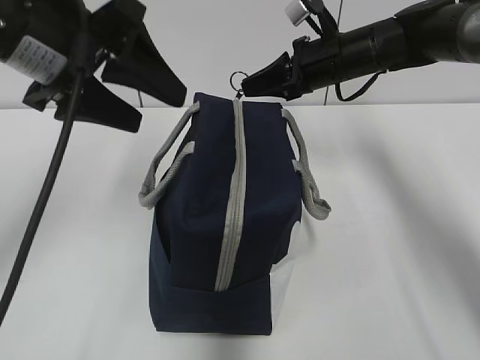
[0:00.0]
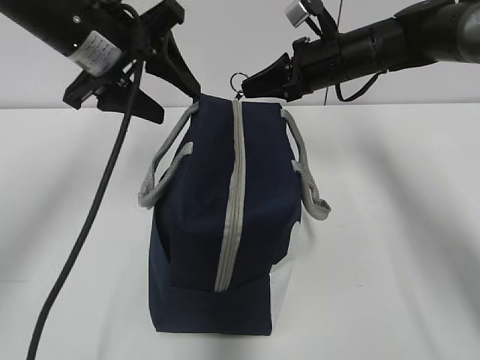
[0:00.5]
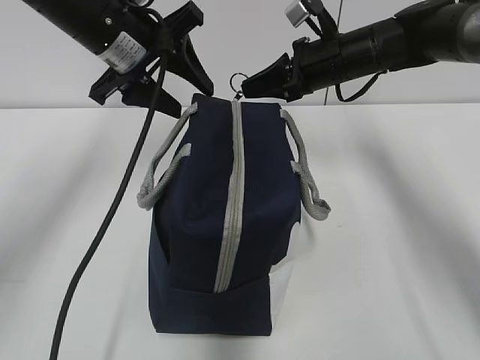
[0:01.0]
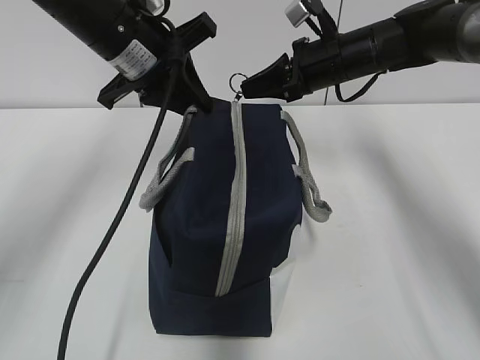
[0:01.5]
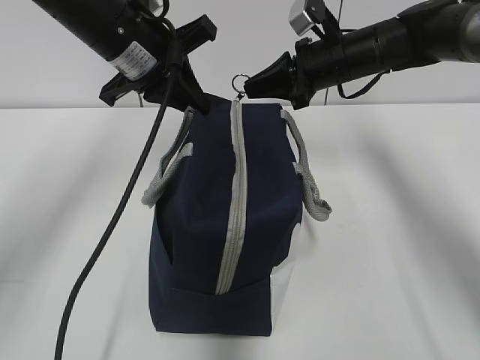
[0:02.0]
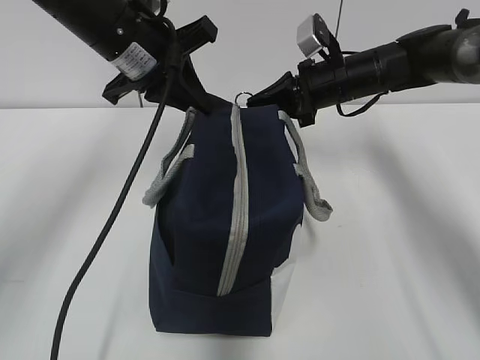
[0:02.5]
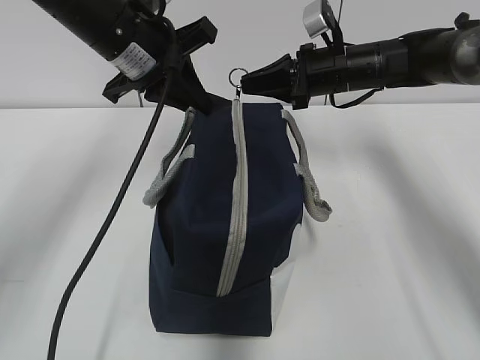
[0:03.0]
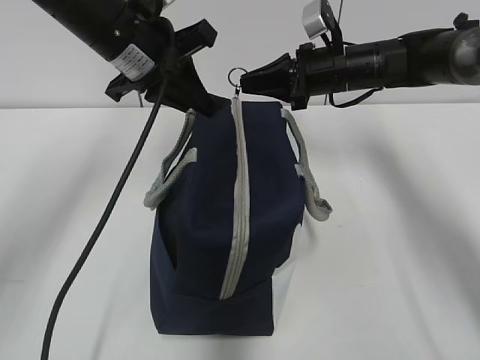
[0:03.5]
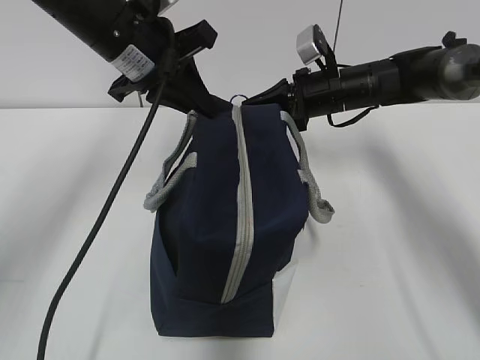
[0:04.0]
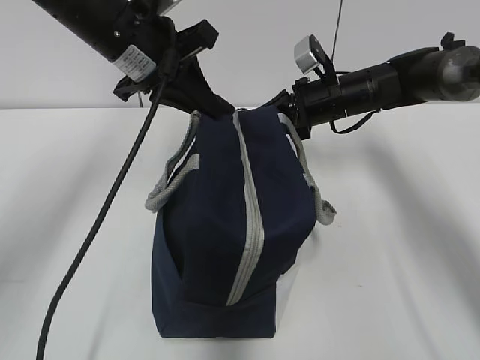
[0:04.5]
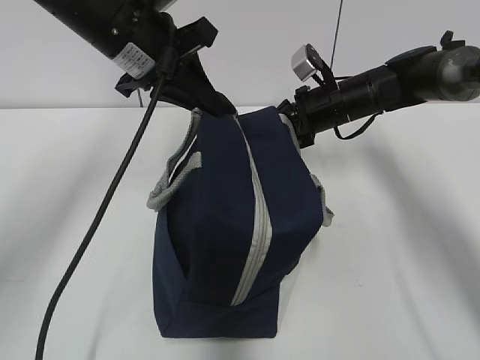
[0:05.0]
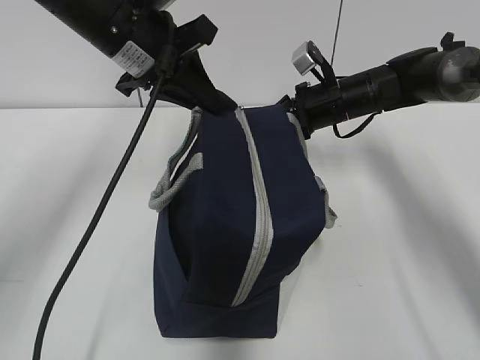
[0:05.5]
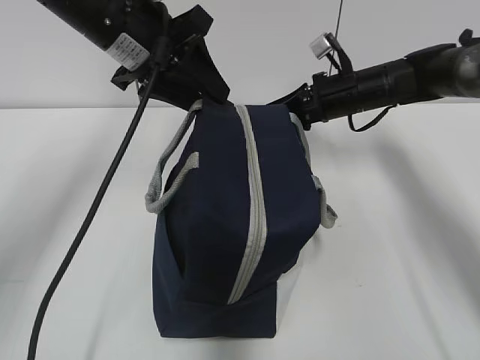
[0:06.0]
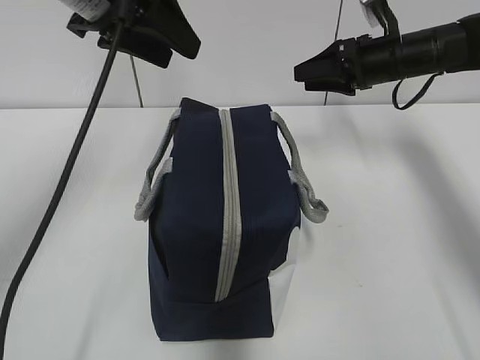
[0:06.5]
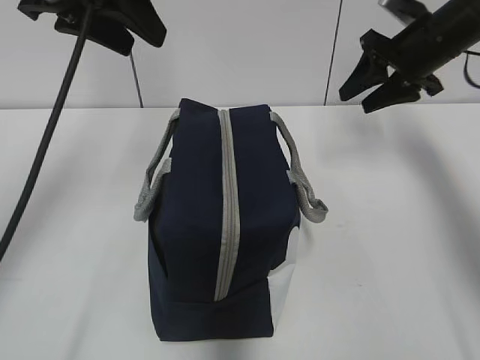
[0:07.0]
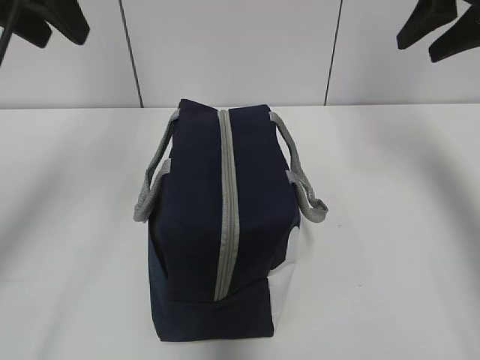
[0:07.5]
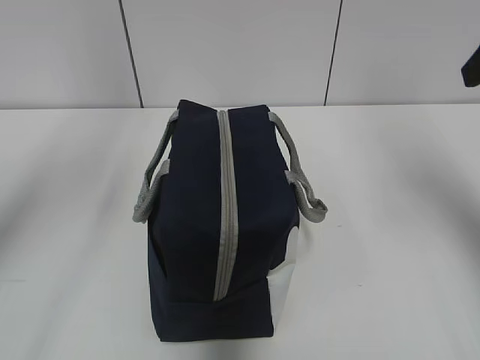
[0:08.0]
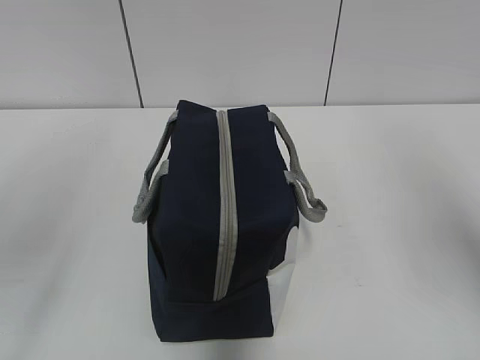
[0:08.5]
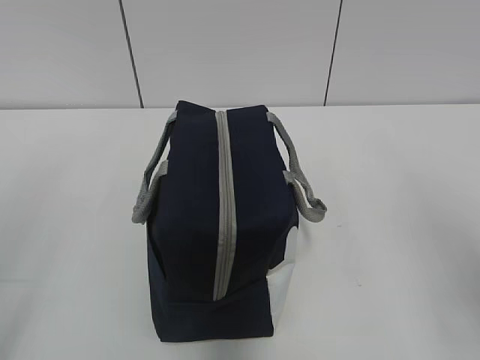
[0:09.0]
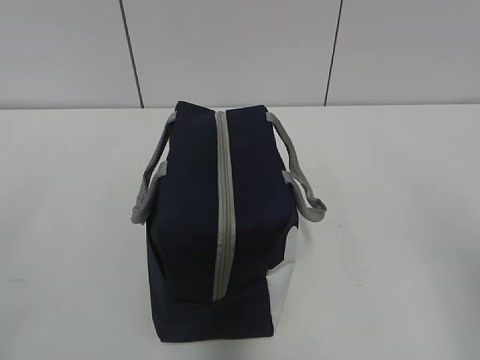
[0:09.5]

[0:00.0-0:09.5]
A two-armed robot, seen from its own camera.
Step, 0:00.0 to 0:05.0: Pull the zipper with your right hand.
0:00.0 to 0:02.0: The left gripper travels forward by approximately 10 cm, and closes its fingers.
0:02.0 to 0:04.0: The right gripper moves downward, roughly 5 cm.
0:04.0 to 0:05.5: The grippers make only small movements.
0:05.5 to 0:07.5: The left gripper travels upward, to the left and backward by about 15 cm, and opens up; the right gripper is displaced upward, to the right and backward by roughly 25 cm, and opens its fingers.
0:07.5 to 0:09.5: The left gripper travels backward and downward by roughly 30 cm, while the right gripper shifts about 30 cm backward.

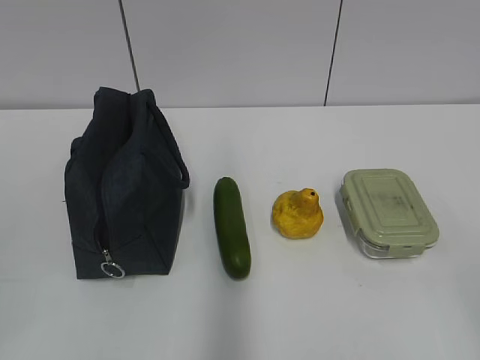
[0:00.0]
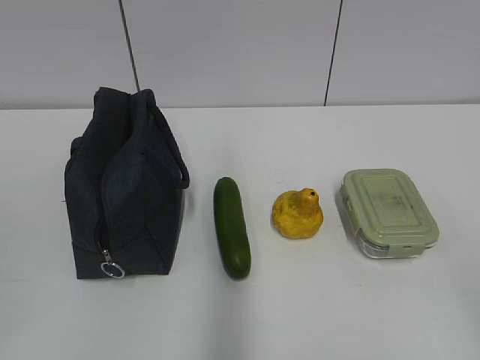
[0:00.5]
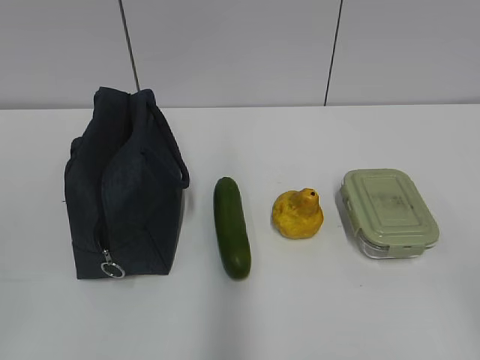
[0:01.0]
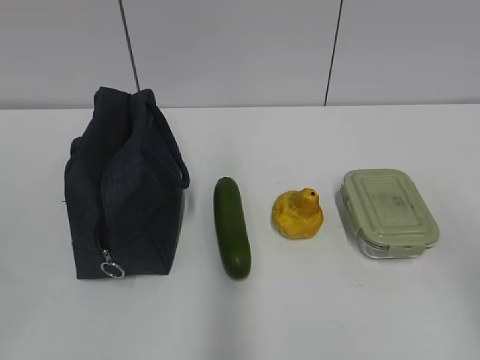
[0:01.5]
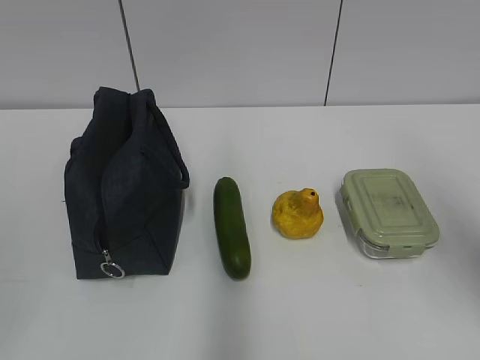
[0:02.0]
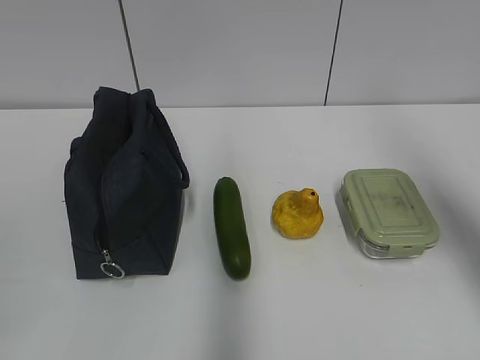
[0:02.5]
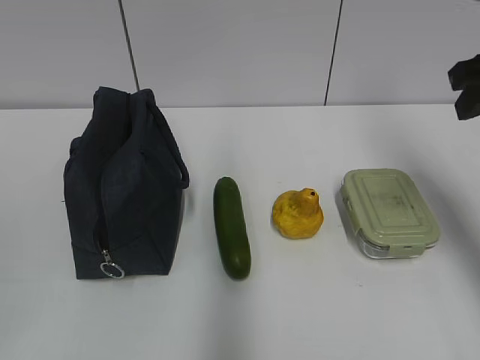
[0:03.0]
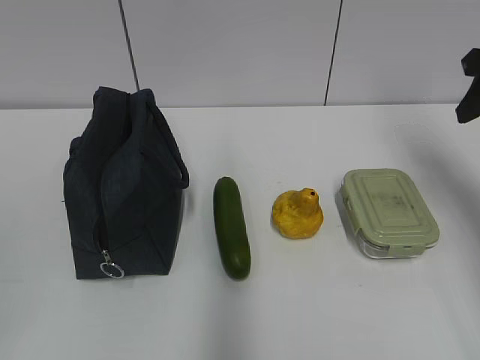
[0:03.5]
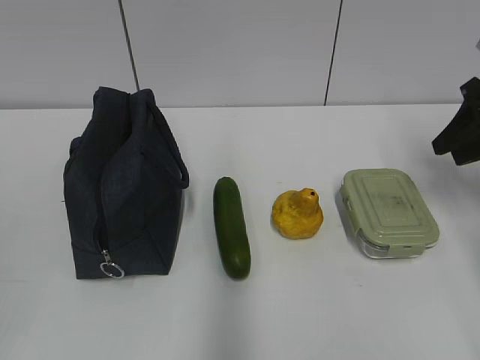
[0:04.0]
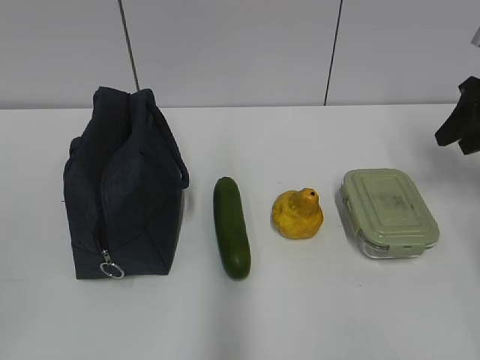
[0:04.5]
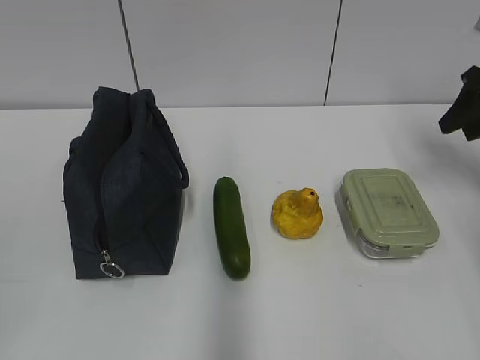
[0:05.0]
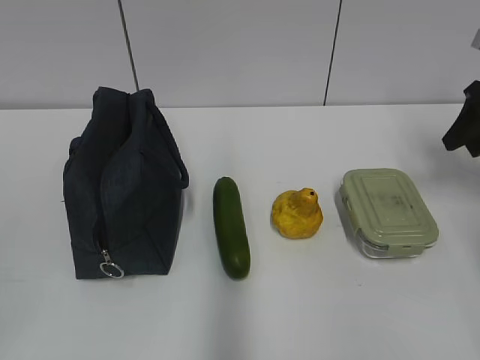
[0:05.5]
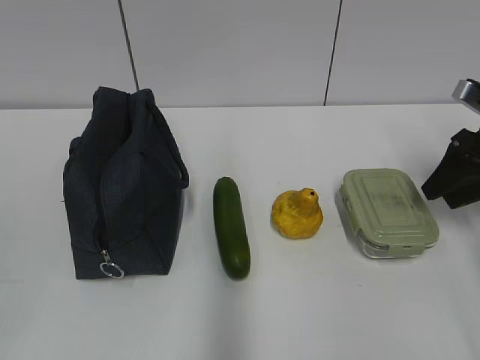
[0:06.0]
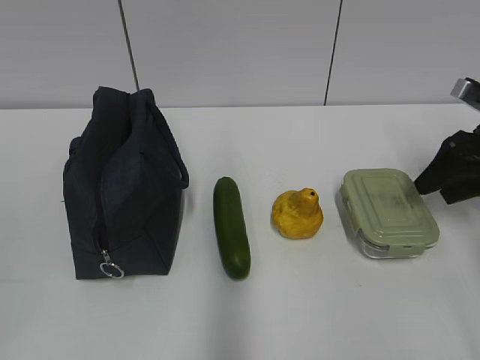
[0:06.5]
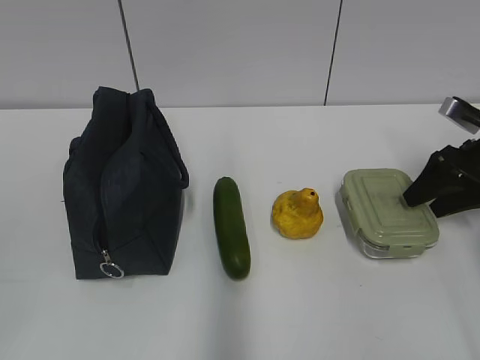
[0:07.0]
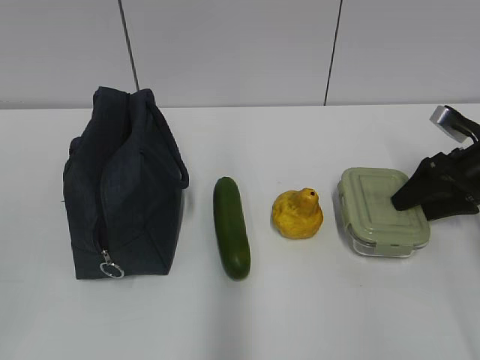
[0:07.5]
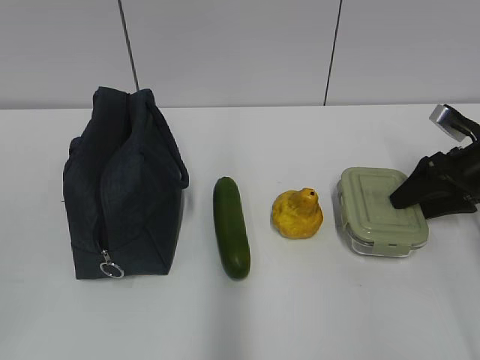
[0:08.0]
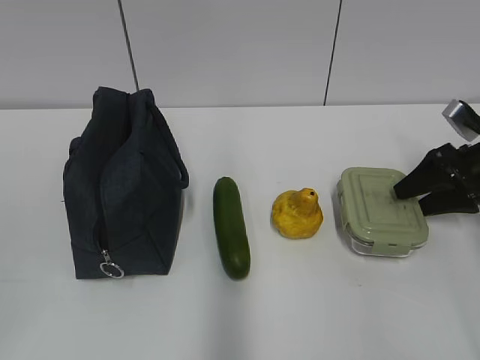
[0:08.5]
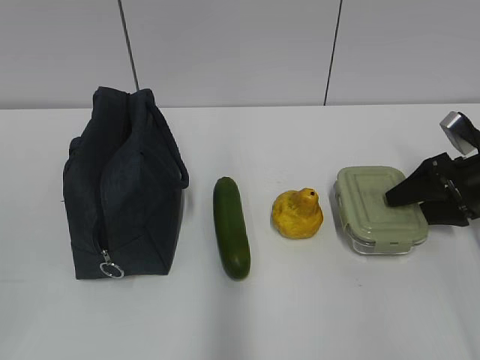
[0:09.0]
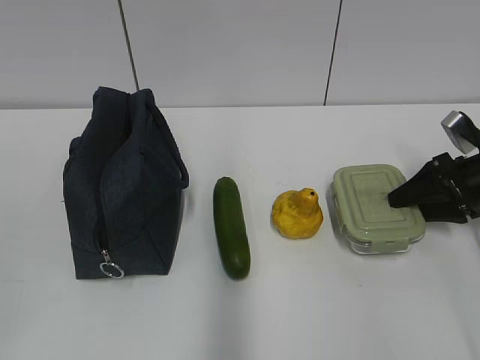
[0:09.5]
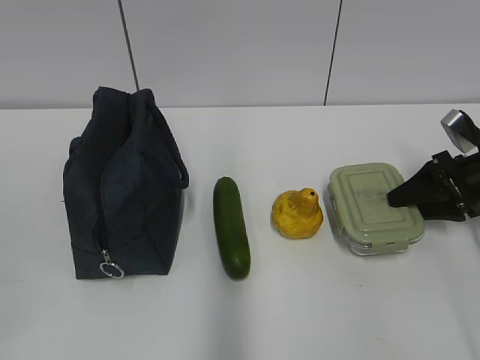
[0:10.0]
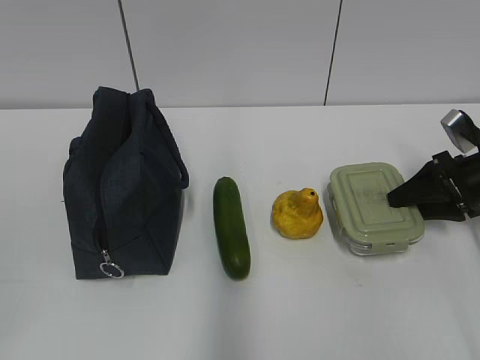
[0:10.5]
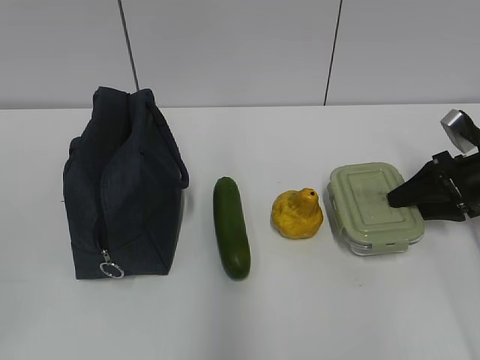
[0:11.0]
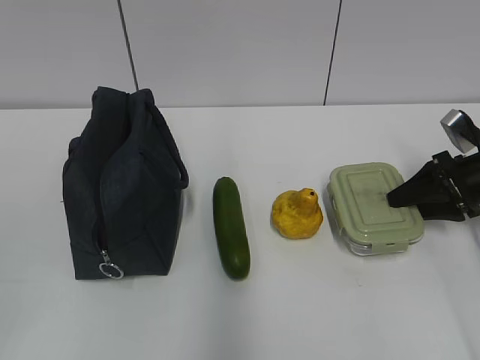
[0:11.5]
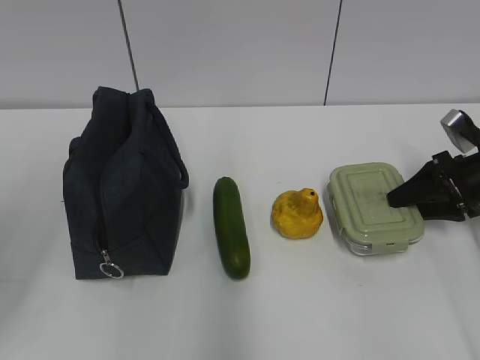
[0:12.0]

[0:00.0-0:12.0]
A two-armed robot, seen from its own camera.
0:02.0 to 0:04.0: The right gripper is displaced forward and downward by approximately 25 cm.
0:04.0 to 0:06.0: The right gripper heads downward, covering roughly 5 cm.
0:06.0 to 0:08.0: The right gripper travels downward by some 5 cm.
0:08.0 to 0:10.0: The grippers make only small movements.

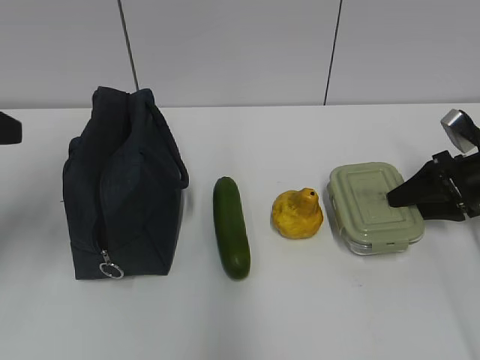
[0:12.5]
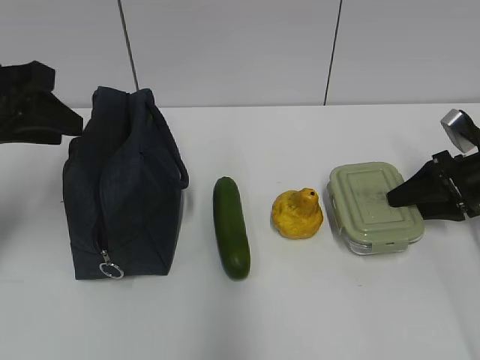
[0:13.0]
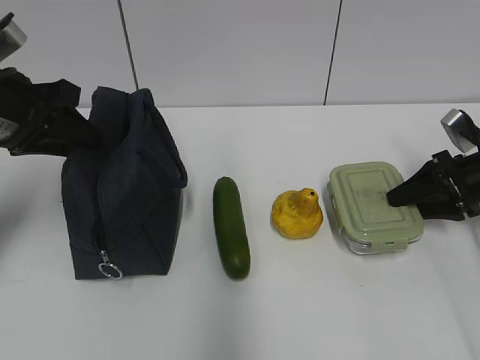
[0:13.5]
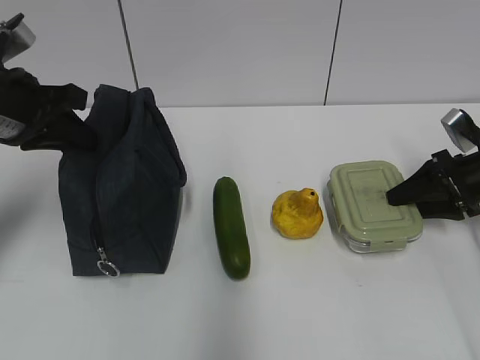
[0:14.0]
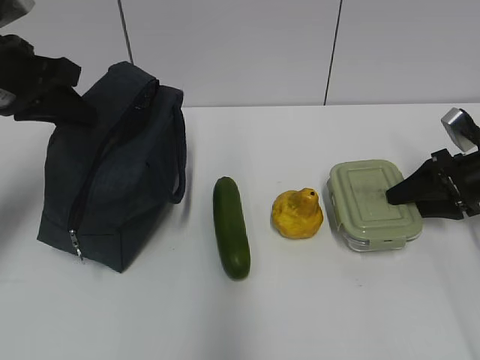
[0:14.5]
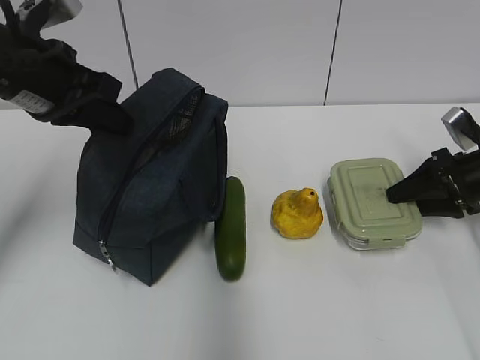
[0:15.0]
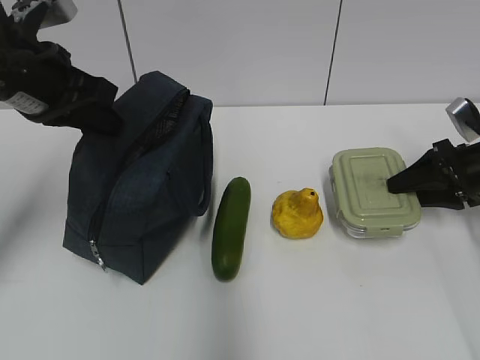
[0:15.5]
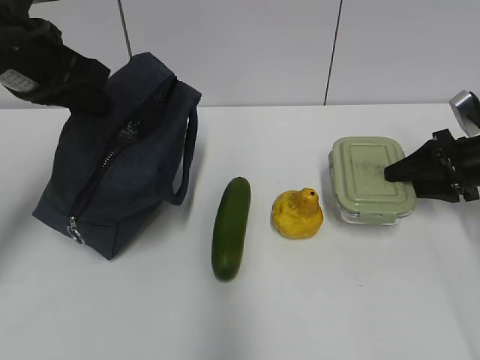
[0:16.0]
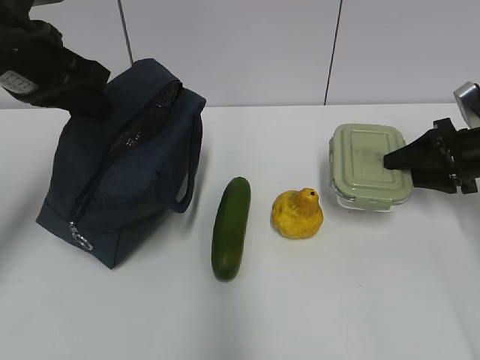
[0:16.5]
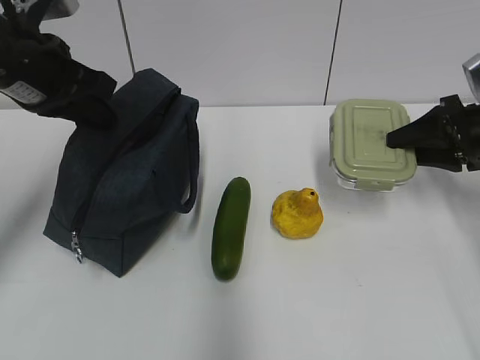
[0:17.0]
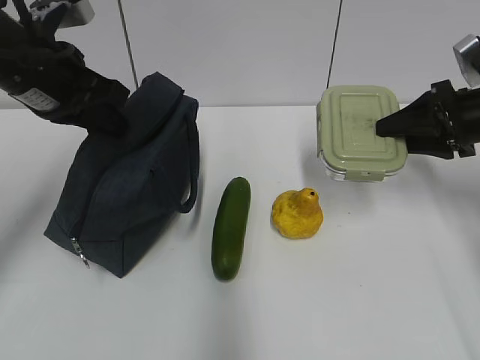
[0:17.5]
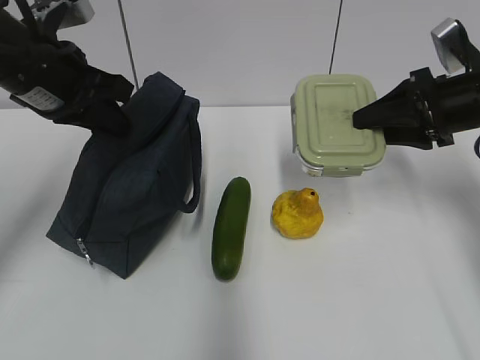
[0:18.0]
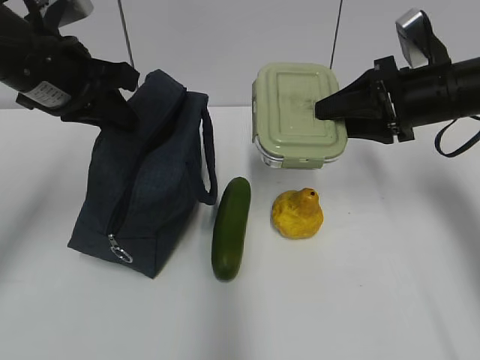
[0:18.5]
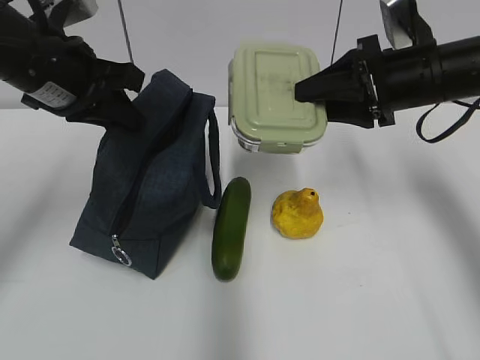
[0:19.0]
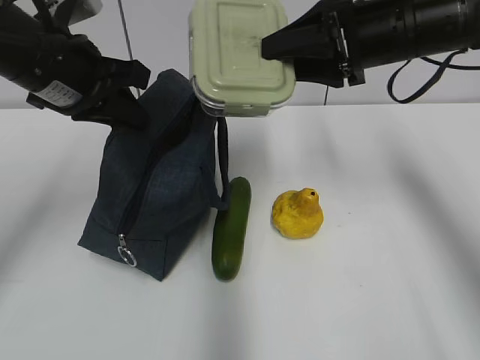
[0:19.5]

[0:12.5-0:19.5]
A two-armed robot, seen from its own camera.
0:12.5 to 0:14.5: The left gripper goes approximately 10 cm forward, and closes its fingers.
0:14.5 to 0:16.0: The grippers make only small movements.
0:16.0 to 0:17.5: The right gripper moves upward, some 5 cm.
0:17.5 to 0:19.5: The right gripper heads to the left and upward, covering about 15 cm.
